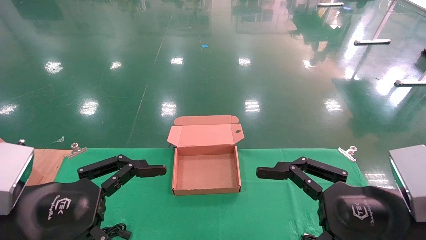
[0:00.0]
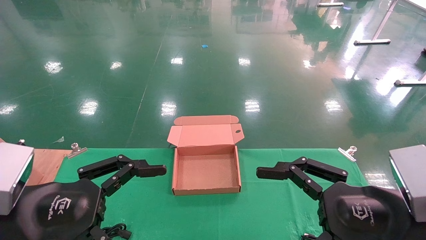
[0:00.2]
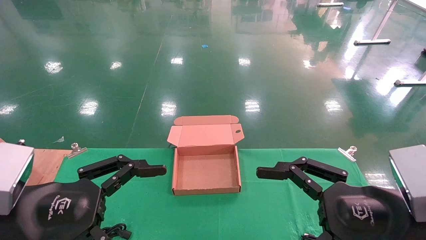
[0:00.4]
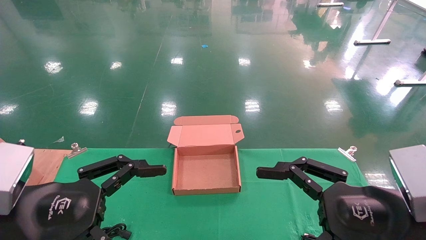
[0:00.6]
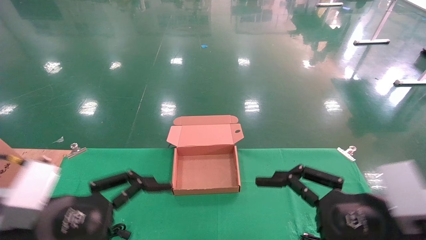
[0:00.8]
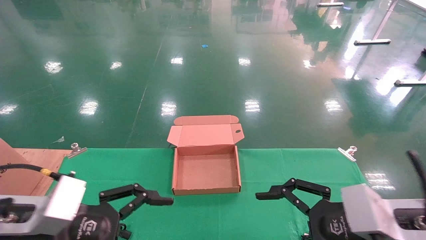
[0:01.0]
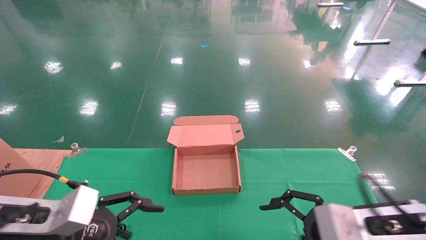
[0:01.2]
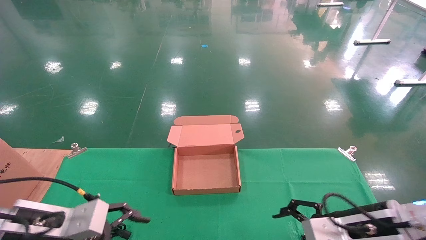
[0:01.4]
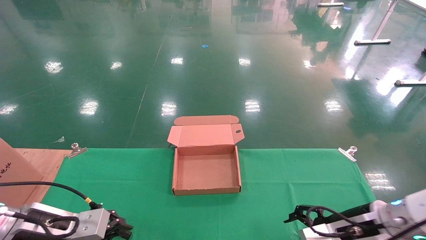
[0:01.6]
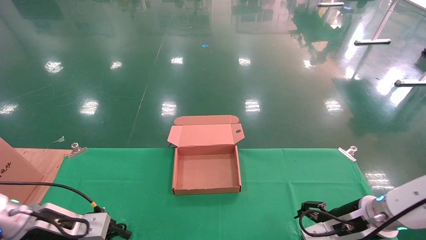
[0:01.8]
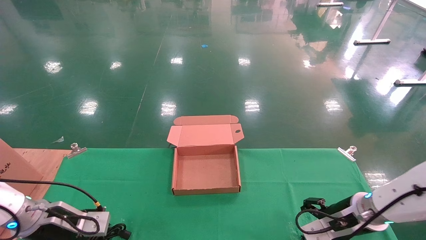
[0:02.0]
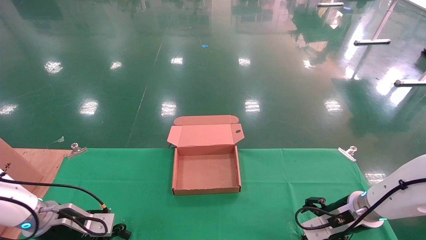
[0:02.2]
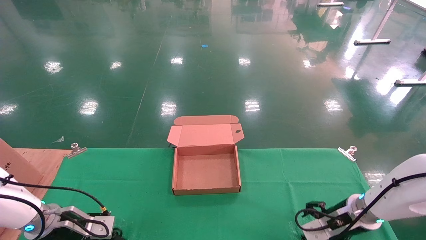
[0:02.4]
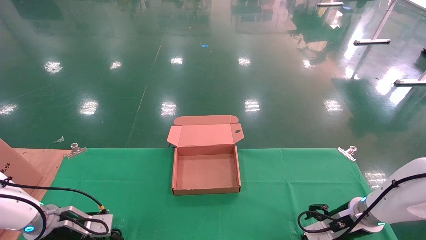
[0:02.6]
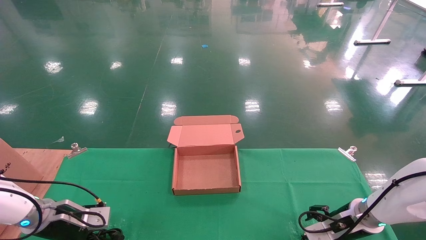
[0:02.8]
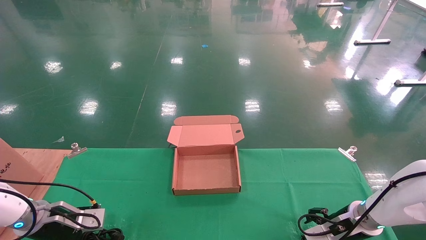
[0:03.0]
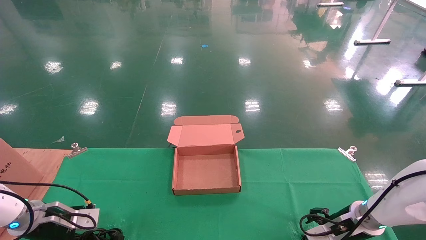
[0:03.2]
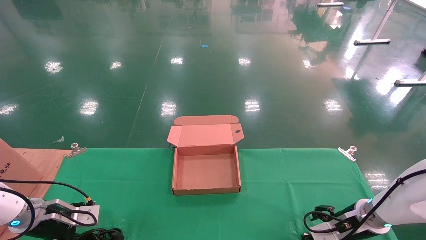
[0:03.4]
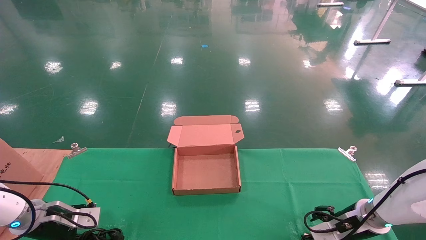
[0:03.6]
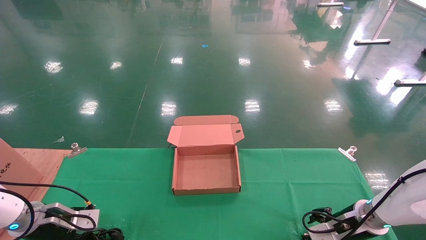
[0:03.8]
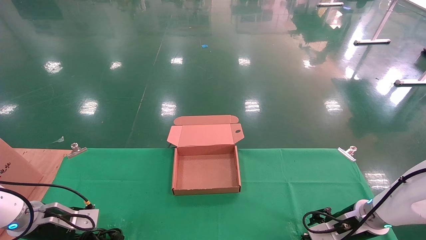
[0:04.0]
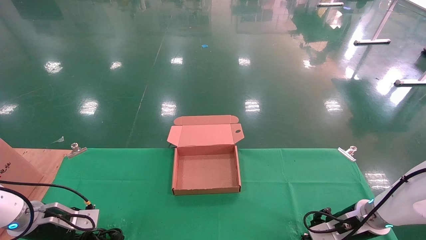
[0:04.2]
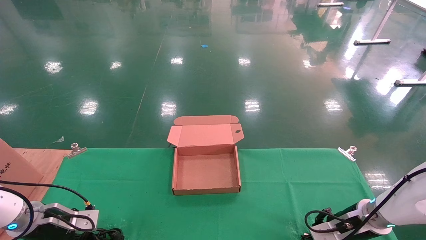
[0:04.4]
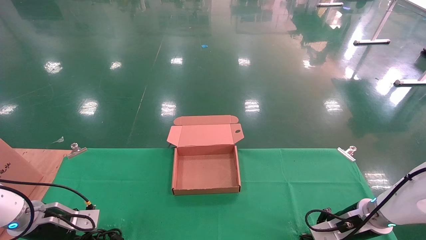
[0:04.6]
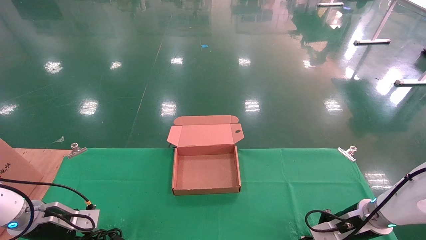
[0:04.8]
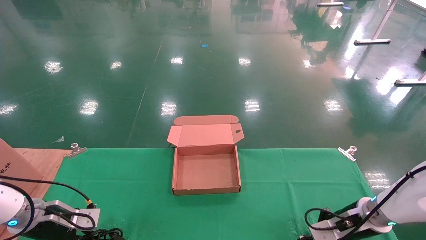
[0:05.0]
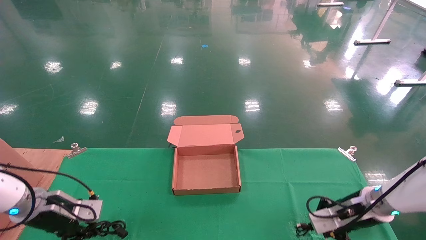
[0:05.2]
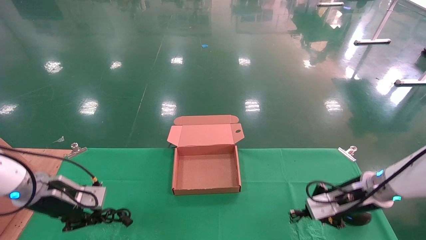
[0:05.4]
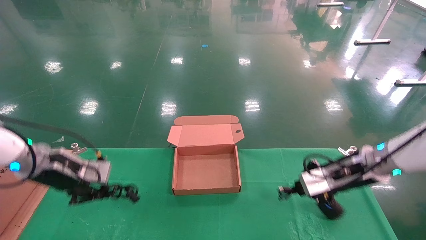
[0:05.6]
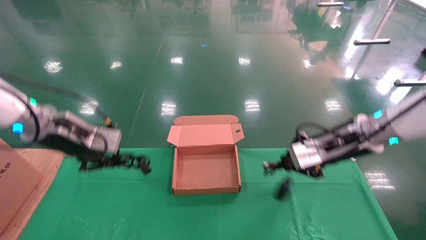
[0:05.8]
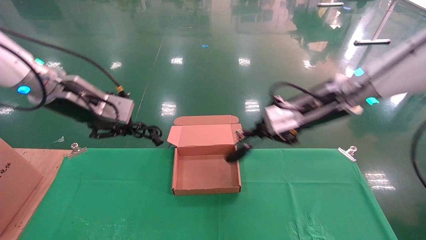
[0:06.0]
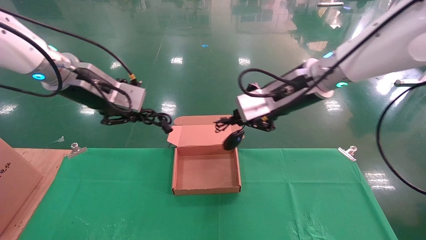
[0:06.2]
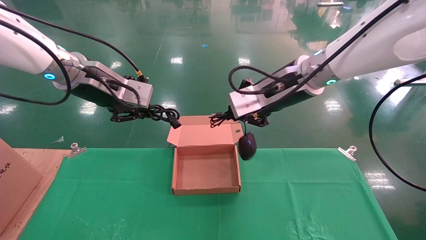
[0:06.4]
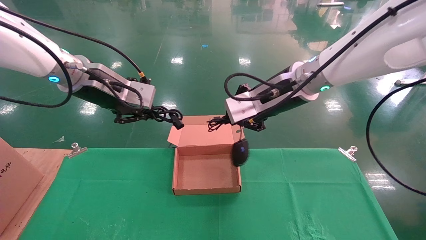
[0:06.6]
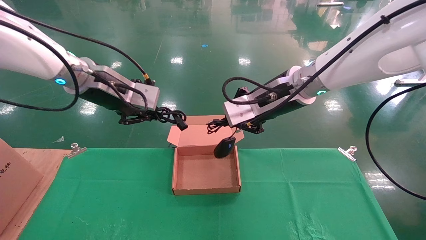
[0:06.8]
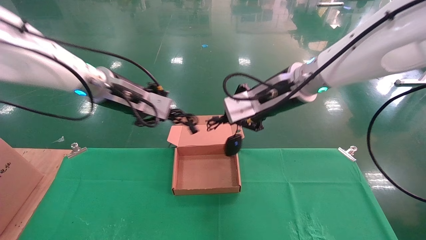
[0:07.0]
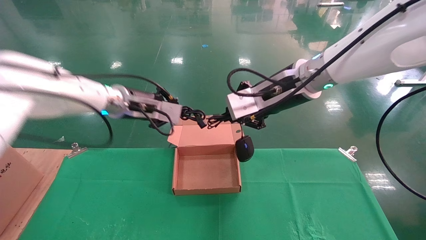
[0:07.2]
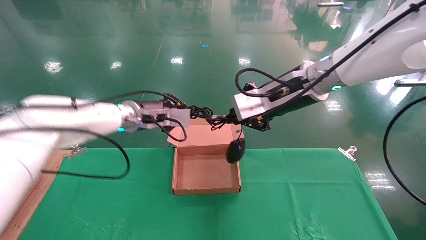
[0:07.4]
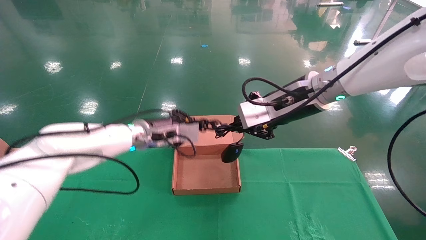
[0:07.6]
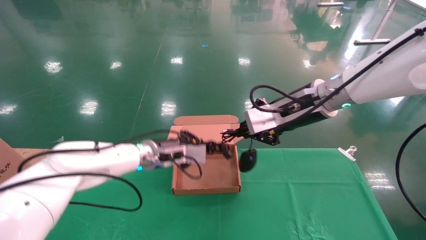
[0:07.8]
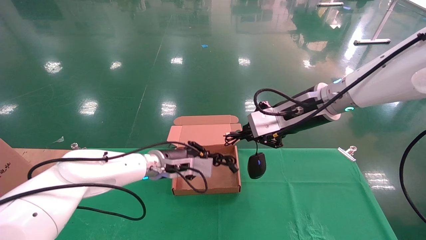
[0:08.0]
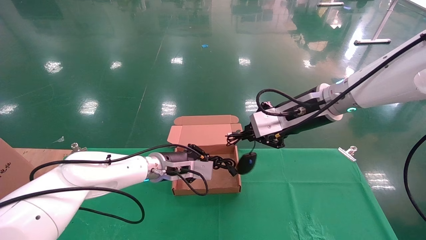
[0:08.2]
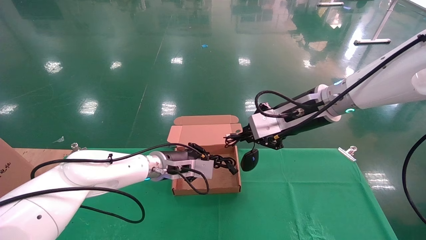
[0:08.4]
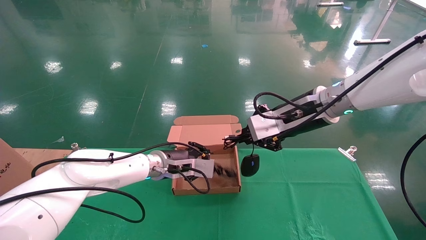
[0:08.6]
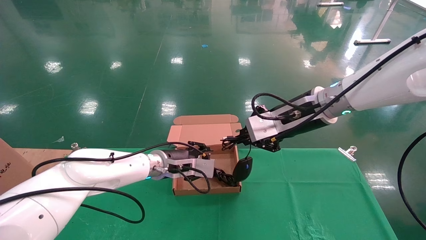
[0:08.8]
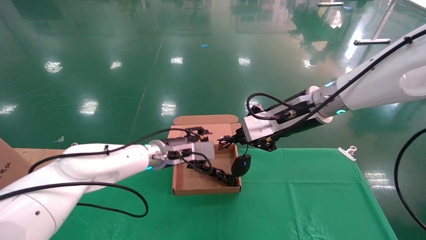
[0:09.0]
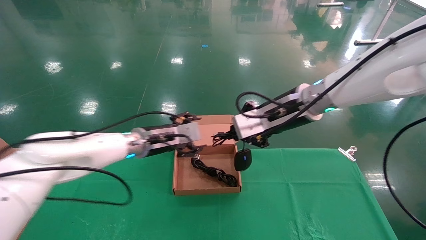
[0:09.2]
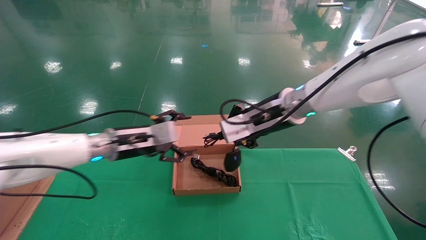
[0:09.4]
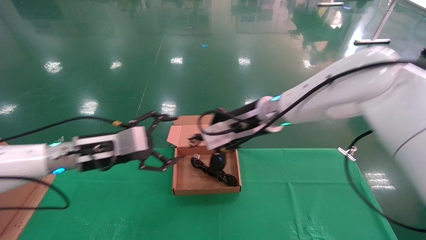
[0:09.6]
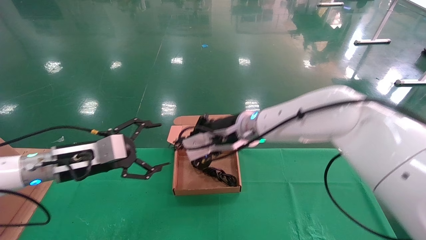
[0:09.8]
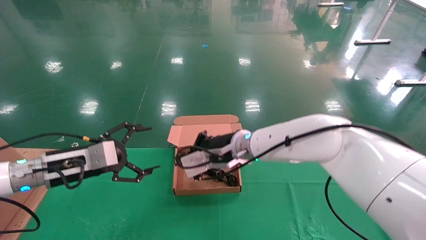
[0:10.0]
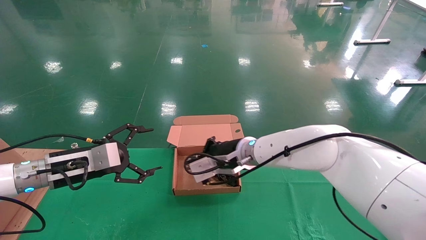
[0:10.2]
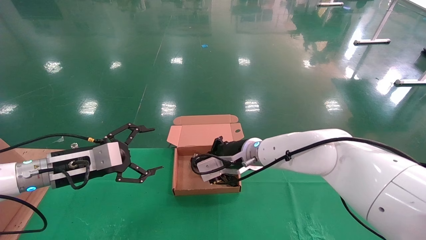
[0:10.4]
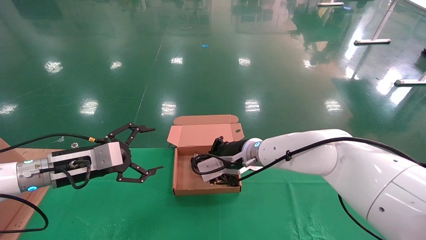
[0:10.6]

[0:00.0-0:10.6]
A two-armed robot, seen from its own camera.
Step, 0:02.0 to 0:05.2: Grab and lift both the mouse and power cord from the accessory packaging area at the same time.
Step, 0:05.4 to 0:10.2: Place the mouse and power cord into the box.
0:00.0 to 0:01.6: The two grippers go approximately 15 cm forward and downward.
0:01.6 to 0:03.0: The right gripper heads forward and downward, covering roughly 10 cm; the left gripper moves forward, to the left and downward, about 15 cm.
0:03.0 to 0:04.6: The left gripper closes; the right gripper closes its fingers.
0:04.6 to 0:06.0: The right gripper is displaced upward and to the left by approximately 30 cm; the left gripper goes roughly 30 cm upward and to the right.
0:06.0 to 0:07.6: The left gripper moves to the right, downward and forward, approximately 20 cm.
0:07.6 to 0:09.0: The left gripper opens up.
0:09.0 to 0:10.6: The left gripper shifts about 20 cm to the left and backward, and opens. Meanwhile the right gripper travels downward, to the left and forward by about 15 cm.

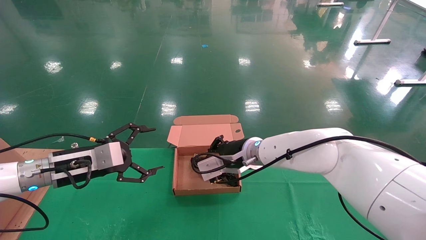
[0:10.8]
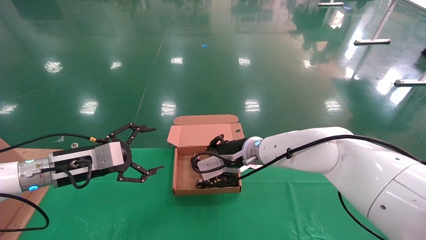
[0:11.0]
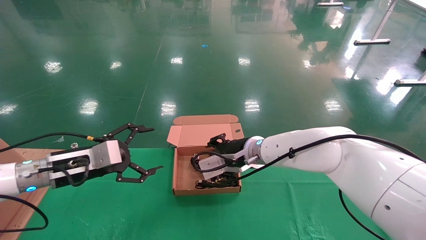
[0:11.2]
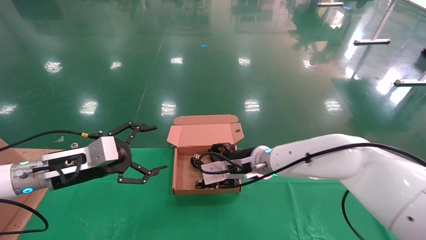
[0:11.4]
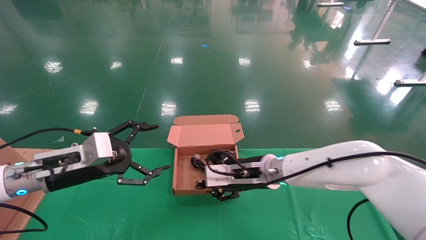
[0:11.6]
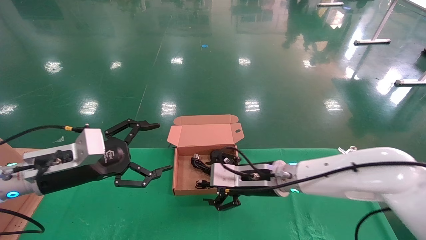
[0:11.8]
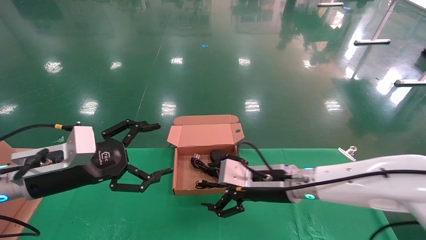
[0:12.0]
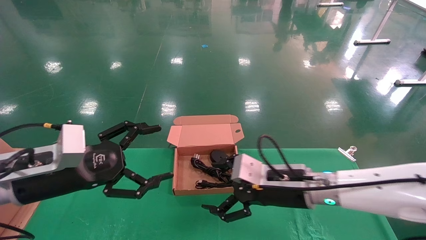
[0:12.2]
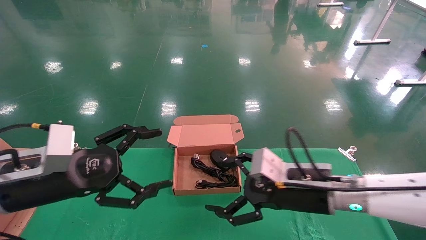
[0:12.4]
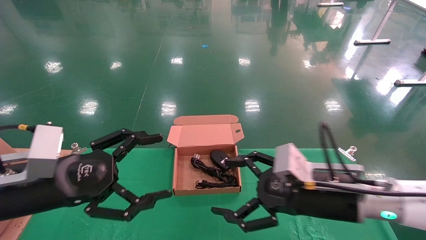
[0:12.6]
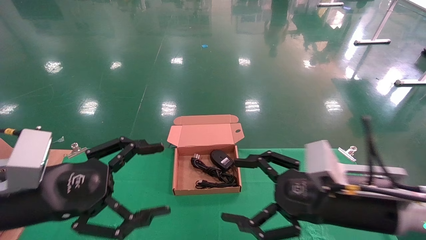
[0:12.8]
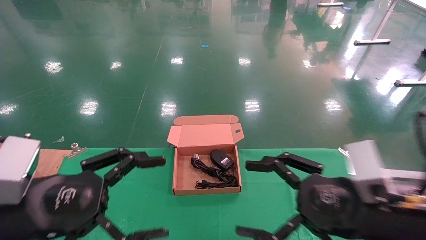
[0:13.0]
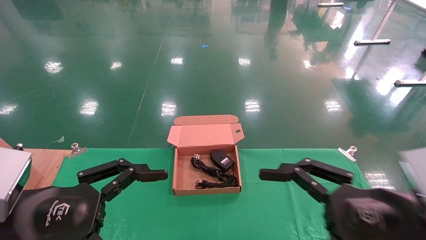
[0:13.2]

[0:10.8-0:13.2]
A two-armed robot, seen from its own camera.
0:10.8 to 0:12.0: The left gripper travels backward by some 5 cm. The right gripper heads backward and to the right, covering about 10 cm, and opens up.
0:12.0 to 0:13.2: The left gripper is displaced backward by about 10 cm. The right gripper goes approximately 20 cm backward and to the right.

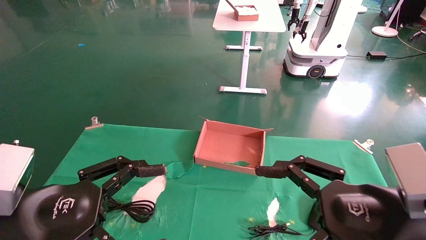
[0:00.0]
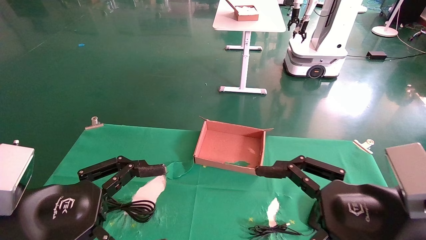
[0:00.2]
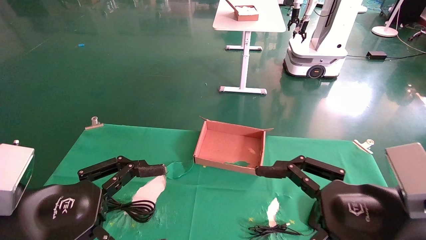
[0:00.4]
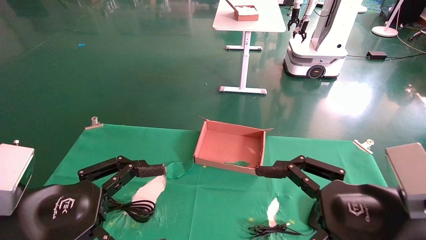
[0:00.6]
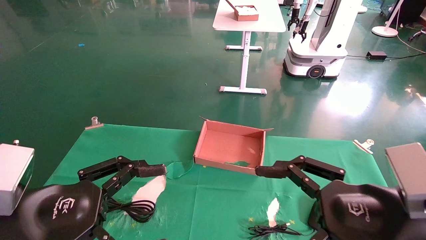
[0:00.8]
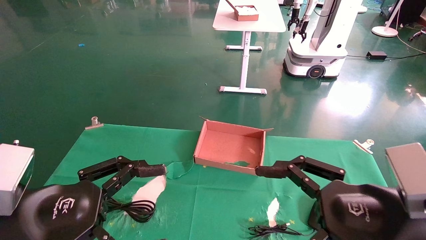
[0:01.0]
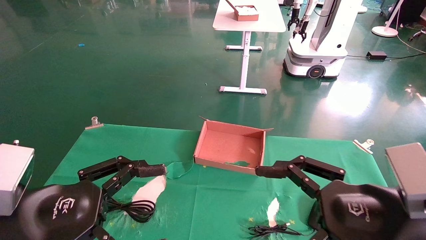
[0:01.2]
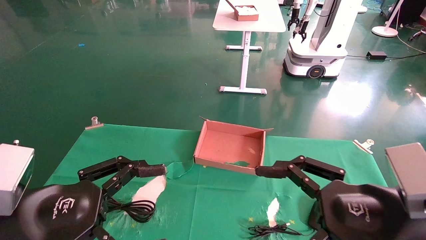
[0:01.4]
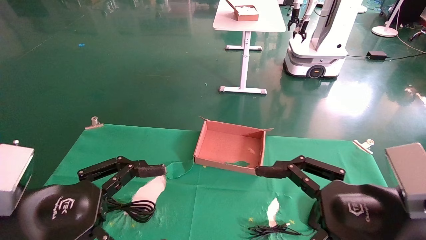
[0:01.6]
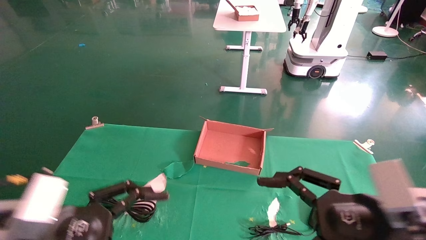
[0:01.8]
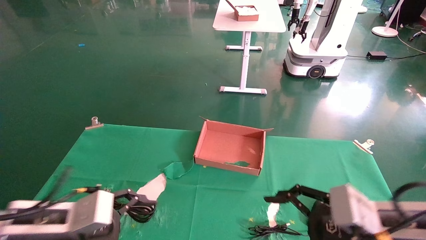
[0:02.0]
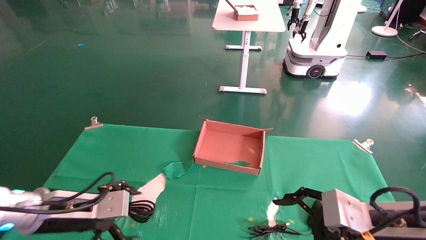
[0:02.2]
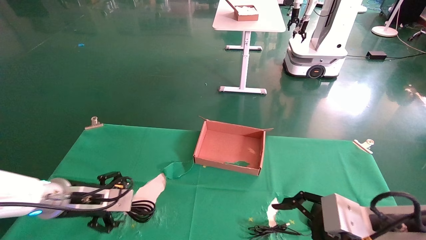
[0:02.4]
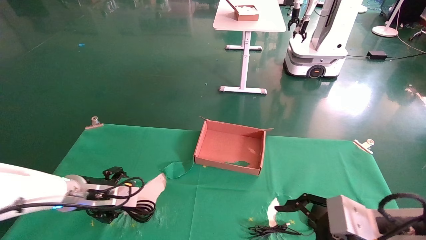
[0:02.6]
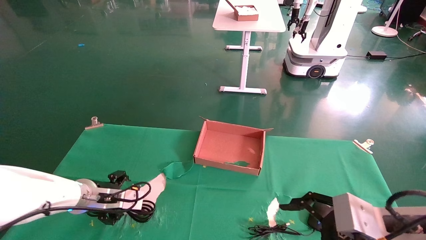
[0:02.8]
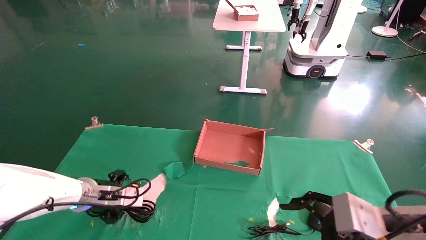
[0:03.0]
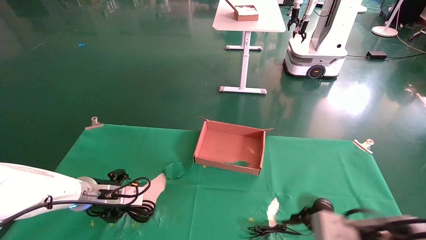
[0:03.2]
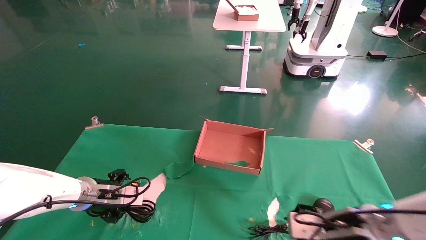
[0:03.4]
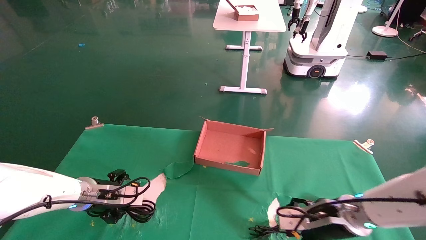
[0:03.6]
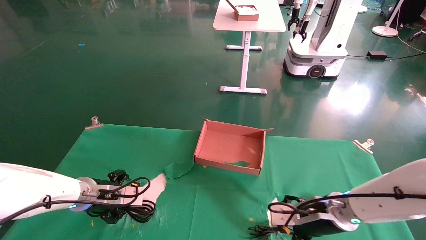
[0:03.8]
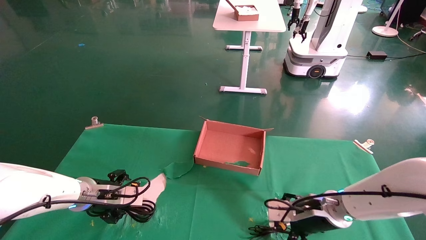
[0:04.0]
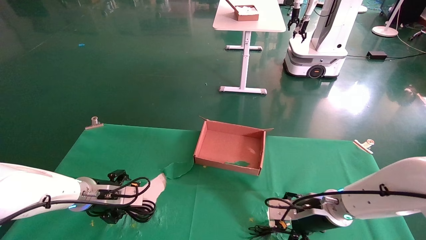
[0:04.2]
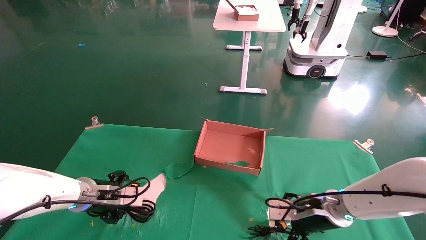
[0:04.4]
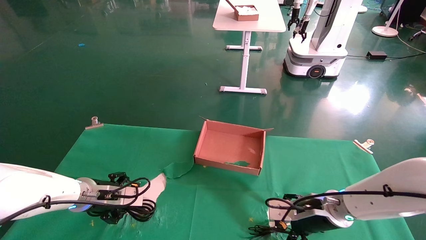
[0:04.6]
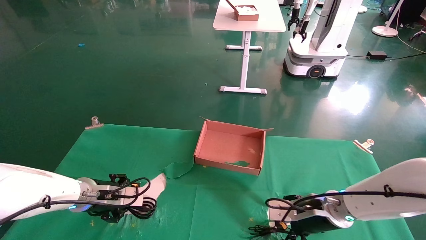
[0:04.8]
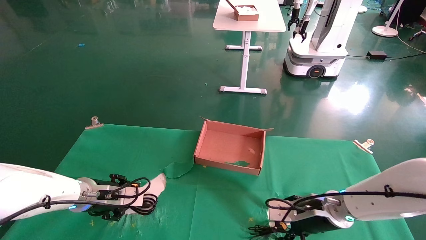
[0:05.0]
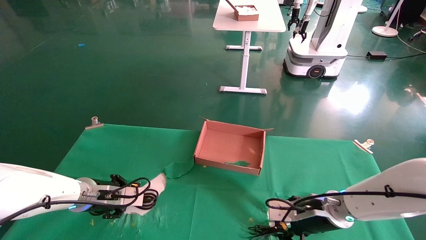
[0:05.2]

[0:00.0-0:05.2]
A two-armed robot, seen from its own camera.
0:00.0 to 0:01.8: The left gripper ends up approximately 5 cm from where it was.
0:01.8 to 0:03.4: The left gripper travels forward by some 20 cm. The right gripper moves forward and downward, some 15 cm.
0:03.4 to 0:05.2: The left gripper closes its fingers. Meanwhile the right gripper is displaced forward by some 5 cm, and closes its fingers.
